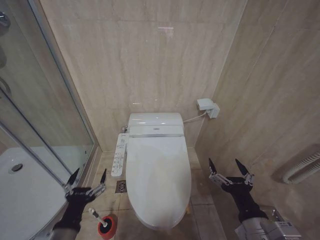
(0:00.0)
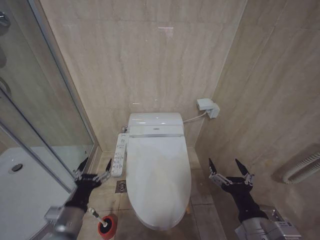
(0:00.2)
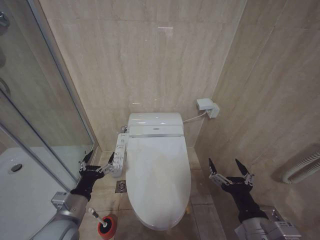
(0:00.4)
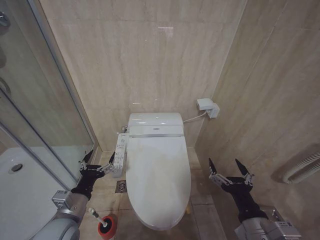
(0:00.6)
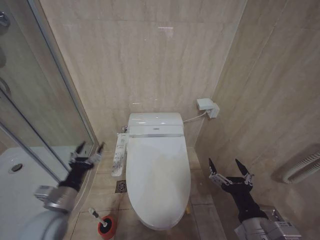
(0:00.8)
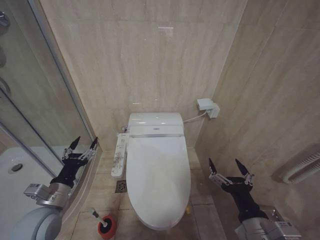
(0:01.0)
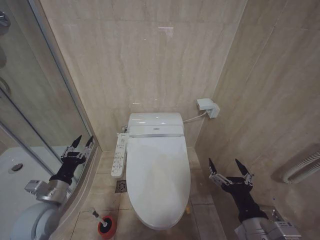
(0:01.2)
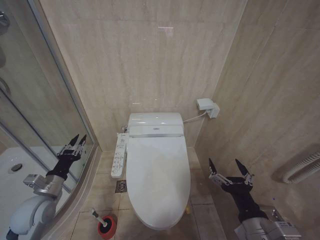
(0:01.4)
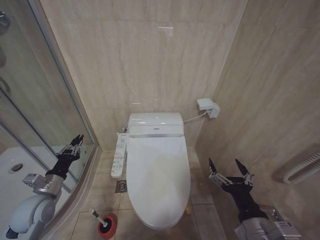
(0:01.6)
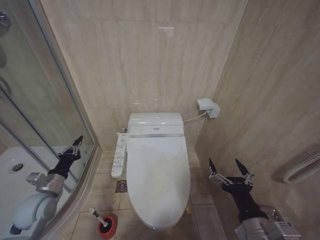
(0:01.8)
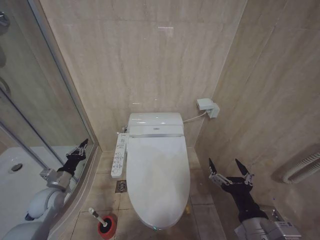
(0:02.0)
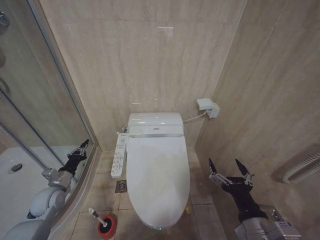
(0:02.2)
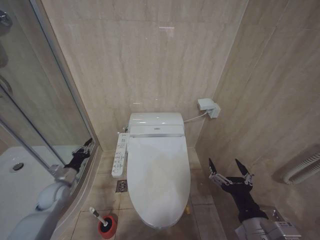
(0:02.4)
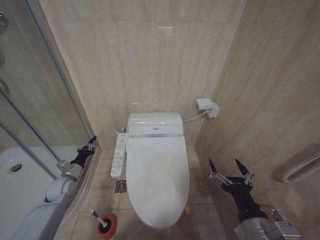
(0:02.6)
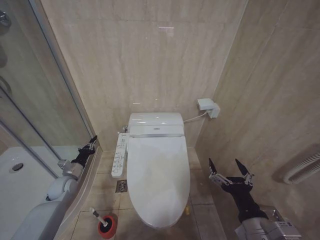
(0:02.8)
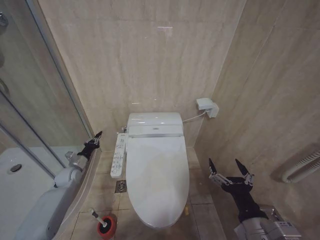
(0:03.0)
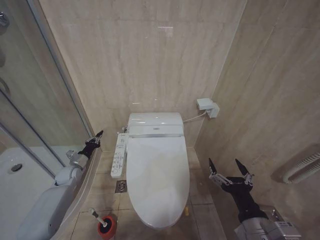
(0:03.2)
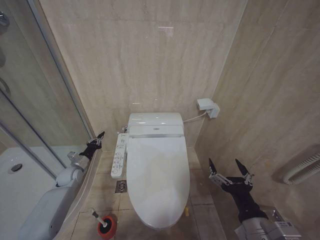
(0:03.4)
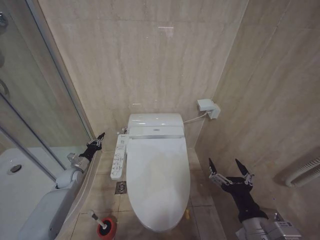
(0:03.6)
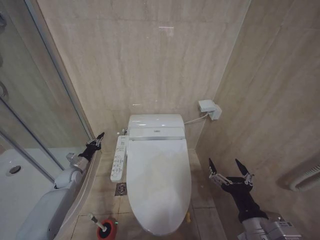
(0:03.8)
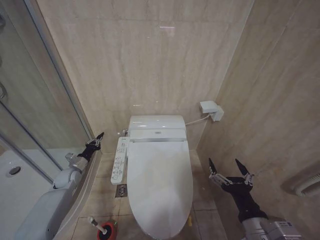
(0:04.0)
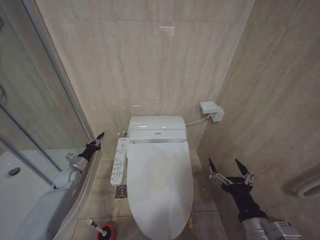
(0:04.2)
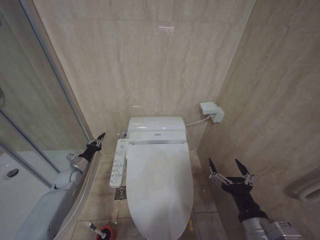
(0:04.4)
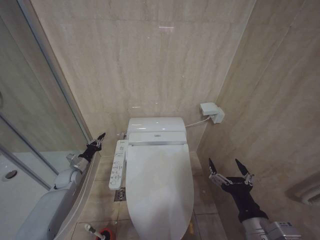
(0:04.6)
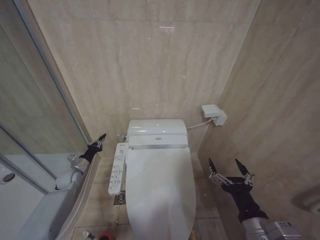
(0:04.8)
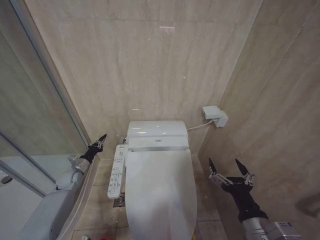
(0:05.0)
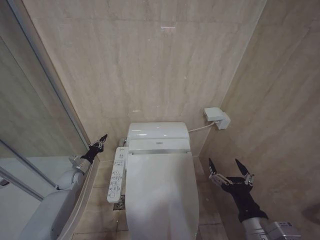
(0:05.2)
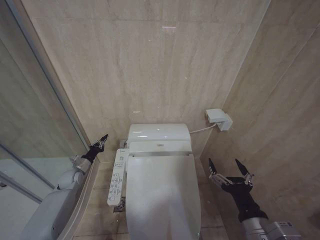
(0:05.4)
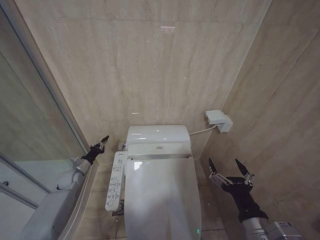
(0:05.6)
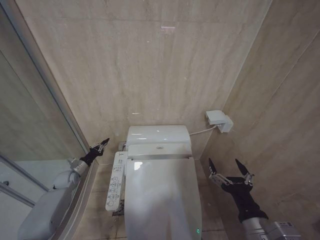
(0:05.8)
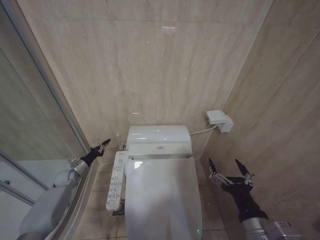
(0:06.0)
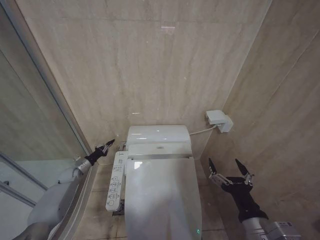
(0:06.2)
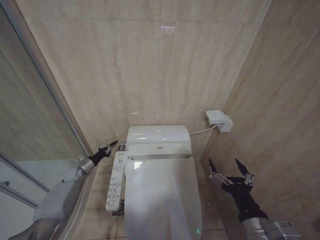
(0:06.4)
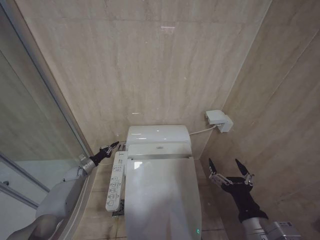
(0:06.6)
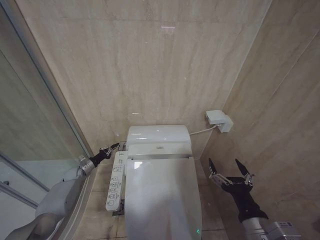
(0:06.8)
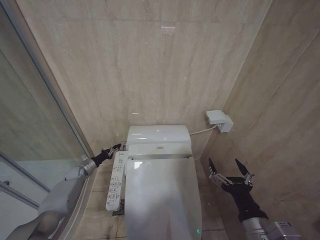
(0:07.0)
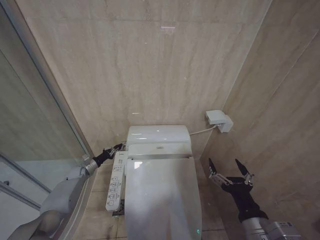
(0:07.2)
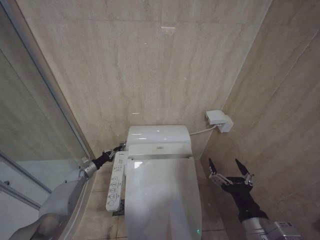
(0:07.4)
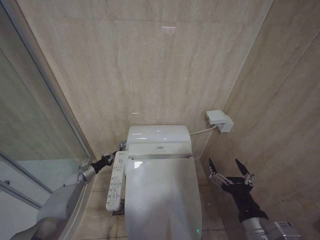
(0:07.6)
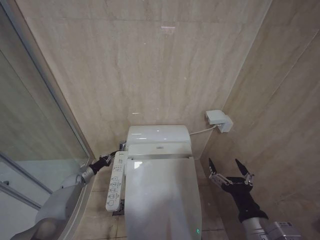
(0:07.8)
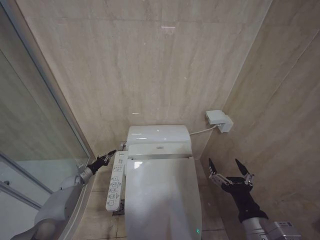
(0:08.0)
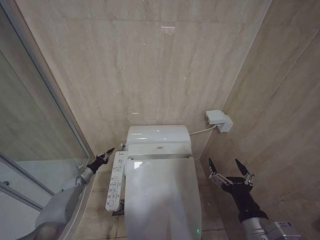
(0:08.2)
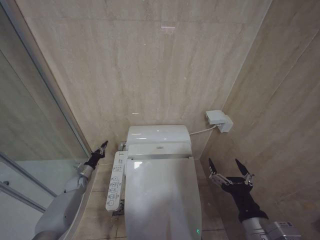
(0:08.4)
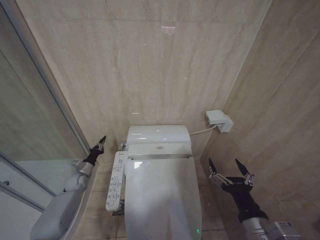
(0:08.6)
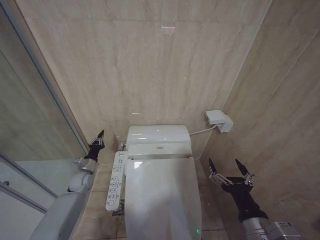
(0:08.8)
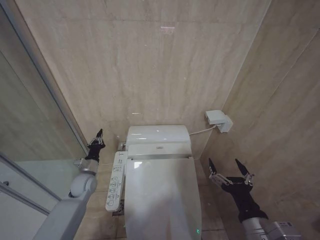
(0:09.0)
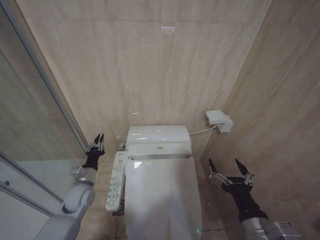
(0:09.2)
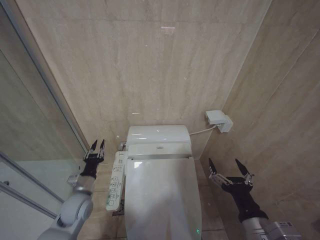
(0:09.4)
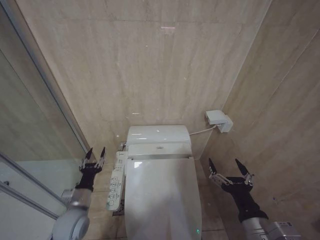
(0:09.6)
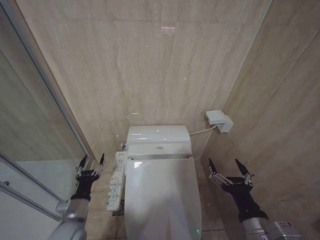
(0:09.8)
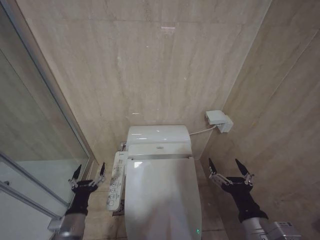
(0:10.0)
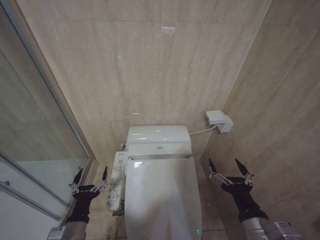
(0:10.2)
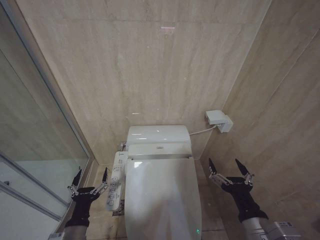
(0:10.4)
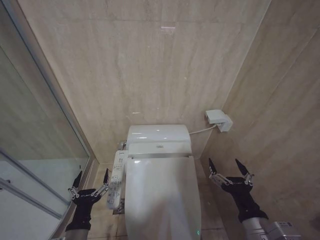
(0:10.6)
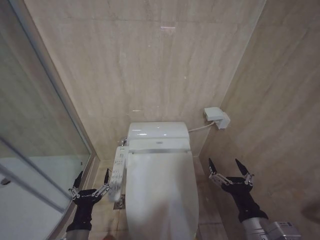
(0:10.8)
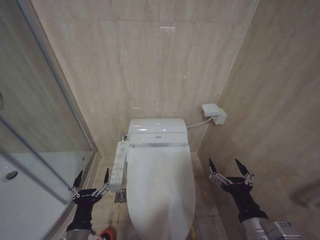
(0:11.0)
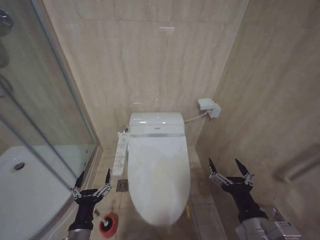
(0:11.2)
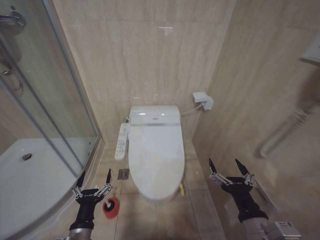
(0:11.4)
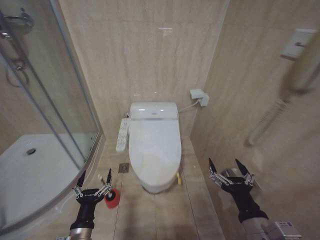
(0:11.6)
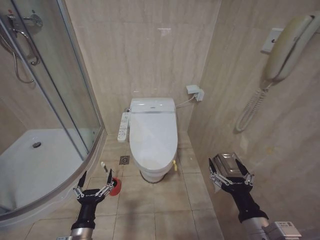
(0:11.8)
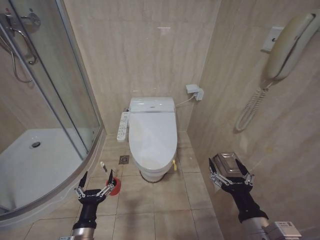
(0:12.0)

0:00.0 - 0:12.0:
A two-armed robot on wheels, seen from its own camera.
Task of the whole recording: Open the toilet lid, clean the toilet bowl with a toilet brush, close the toilet lid, and flush.
0:00.0 - 0:01.6: The left gripper moves forward and to the left, approximately 20 cm, and closes its fingers.
0:01.6 - 0:03.0: The left gripper heads forward and downward, covering about 20 cm, and closes.
0:03.0 - 0:04.4: There are only small adjustments of the grippers.
0:04.4 - 0:06.0: The left gripper shifts by roughly 5 cm.
0:06.0 - 0:07.6: The left gripper heads downward, covering about 5 cm.
0:07.6 - 0:09.0: The left gripper shifts approximately 15 cm to the right, upward and backward.
0:09.0 - 0:10.4: The left gripper goes about 25 cm backward, and opens.

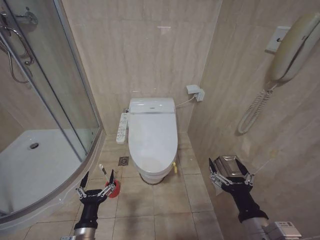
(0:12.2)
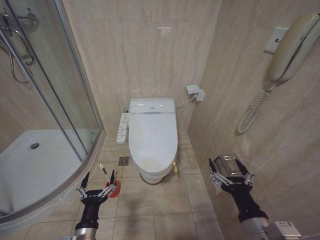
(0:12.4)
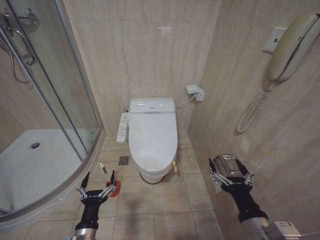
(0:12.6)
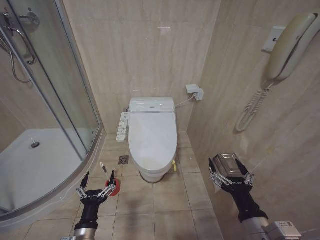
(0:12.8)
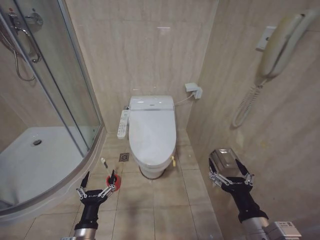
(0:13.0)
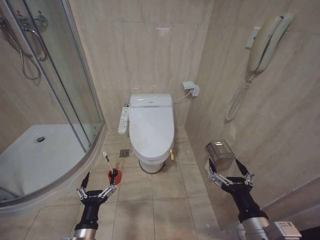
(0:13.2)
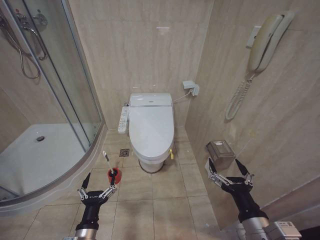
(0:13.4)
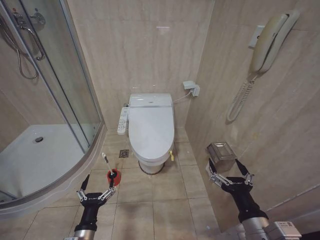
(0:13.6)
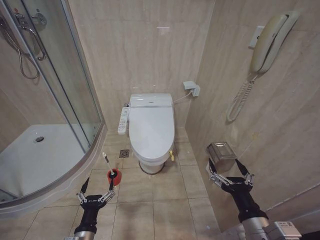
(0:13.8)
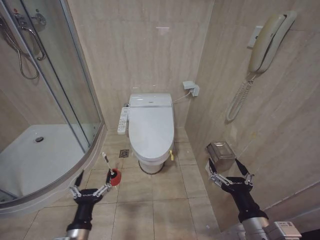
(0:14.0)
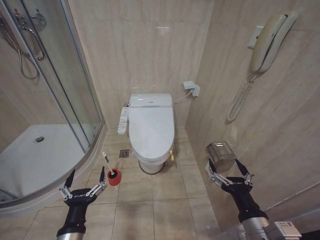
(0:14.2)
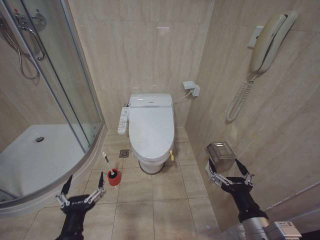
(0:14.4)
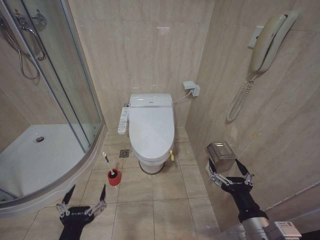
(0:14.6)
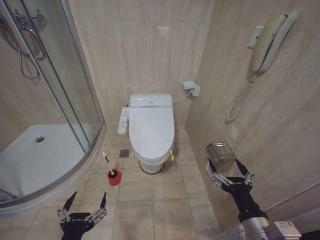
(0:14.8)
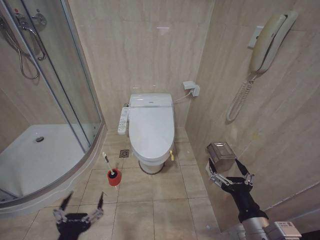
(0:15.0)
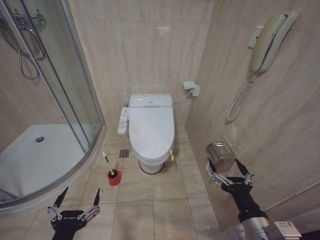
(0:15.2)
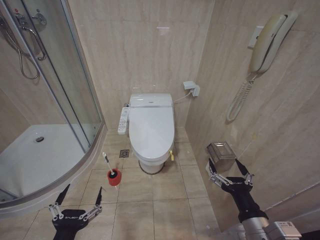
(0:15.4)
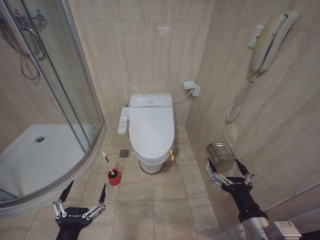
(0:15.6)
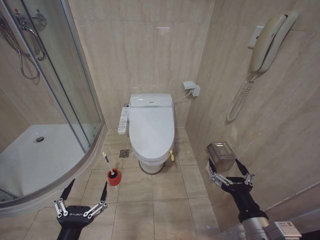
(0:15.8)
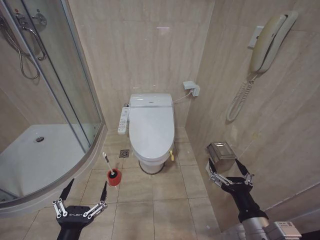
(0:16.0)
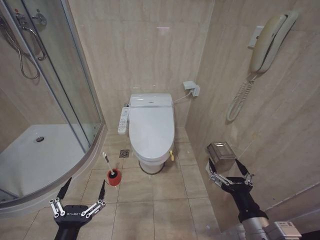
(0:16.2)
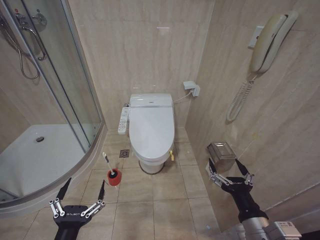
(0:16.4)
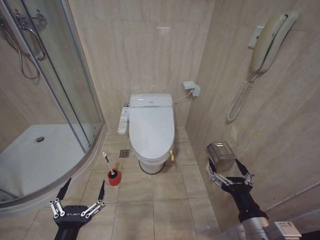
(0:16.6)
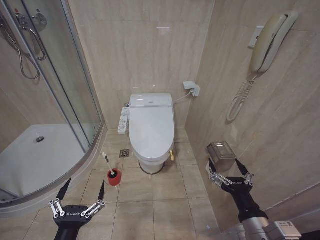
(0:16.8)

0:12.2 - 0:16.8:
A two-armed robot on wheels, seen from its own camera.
Task of the whole recording: Open the toilet lid, clean the toilet bowl with a toilet brush, close the toilet lid, and flush.
0:12.2 - 0:13.8: The grippers make only small movements.
0:13.8 - 0:15.2: The left gripper heads upward and backward, covering approximately 15 cm.
0:15.2 - 0:16.8: The grippers move only a little.
